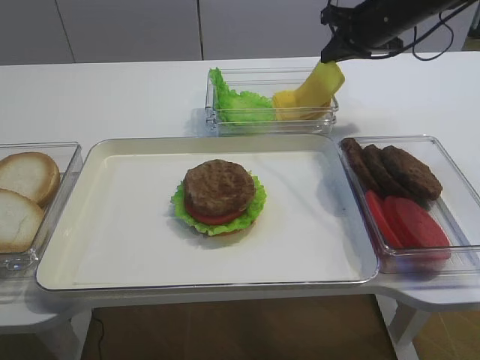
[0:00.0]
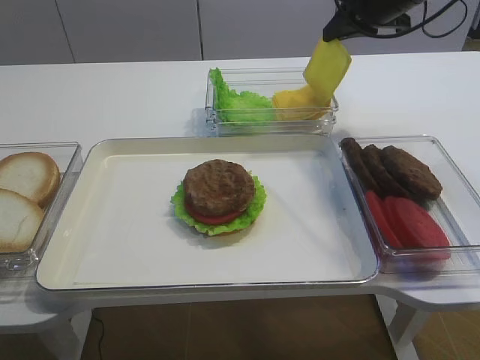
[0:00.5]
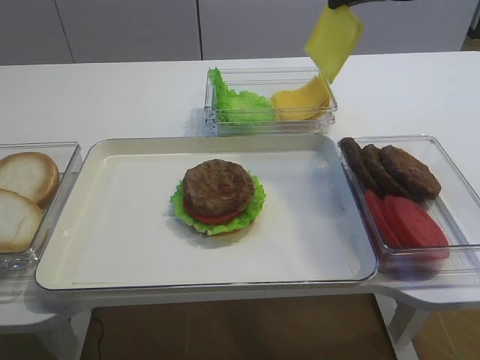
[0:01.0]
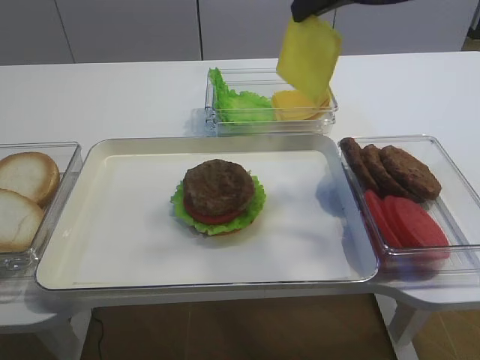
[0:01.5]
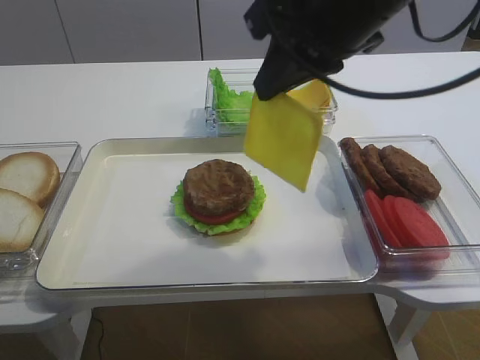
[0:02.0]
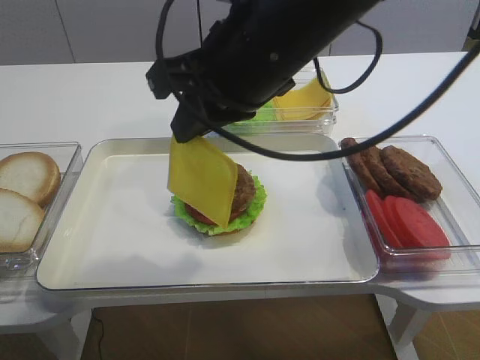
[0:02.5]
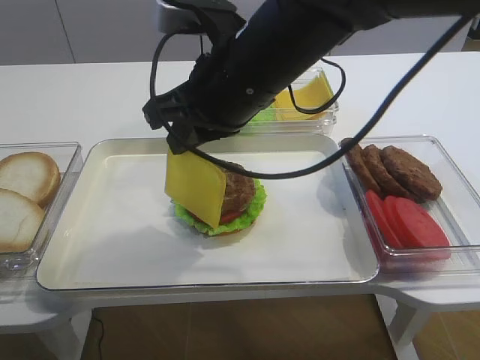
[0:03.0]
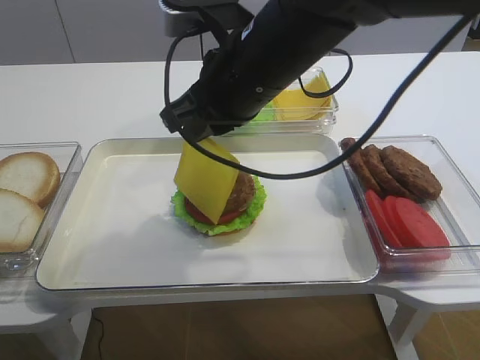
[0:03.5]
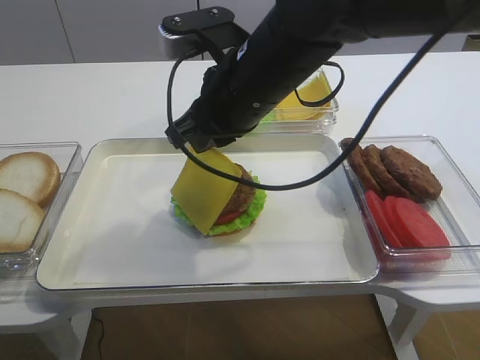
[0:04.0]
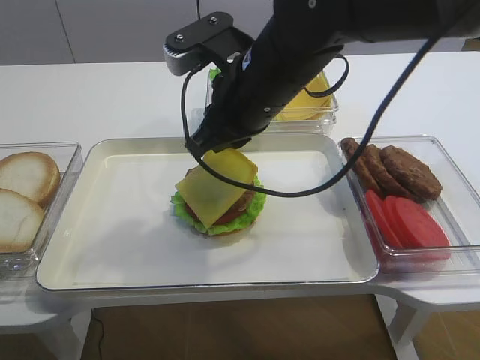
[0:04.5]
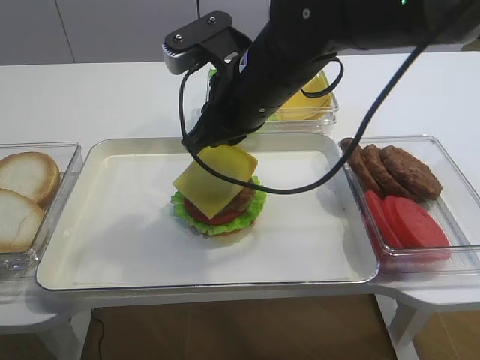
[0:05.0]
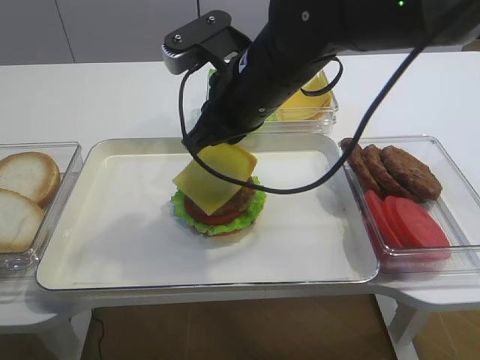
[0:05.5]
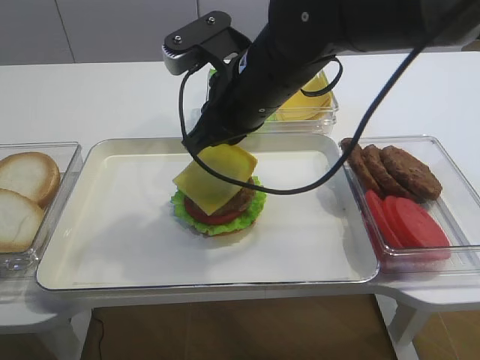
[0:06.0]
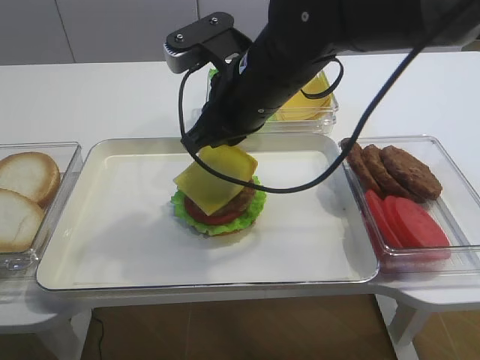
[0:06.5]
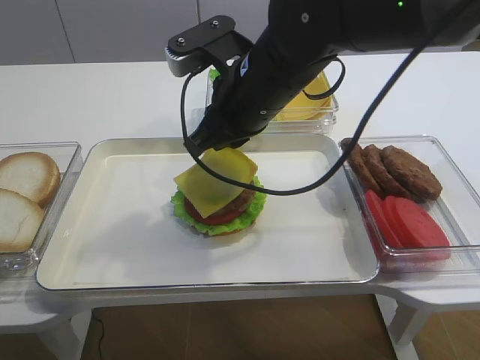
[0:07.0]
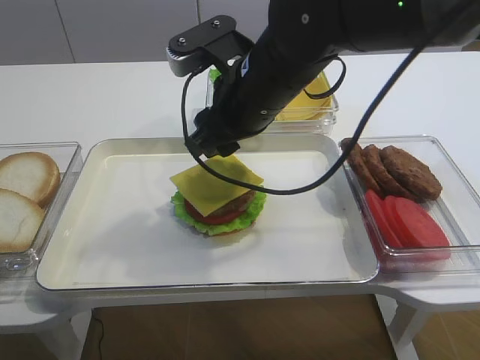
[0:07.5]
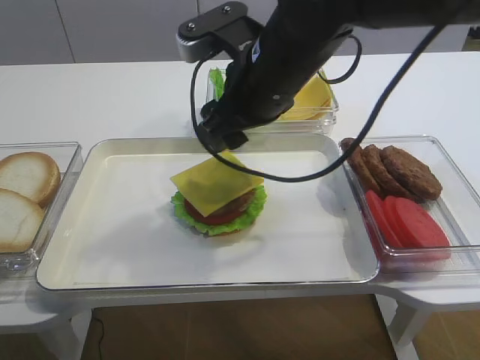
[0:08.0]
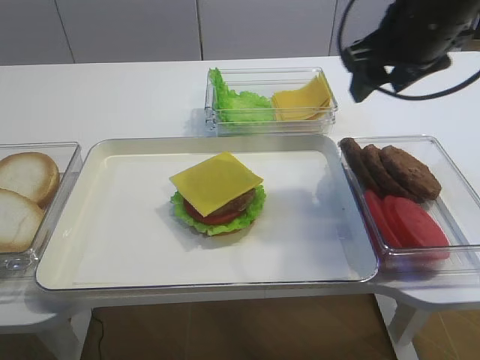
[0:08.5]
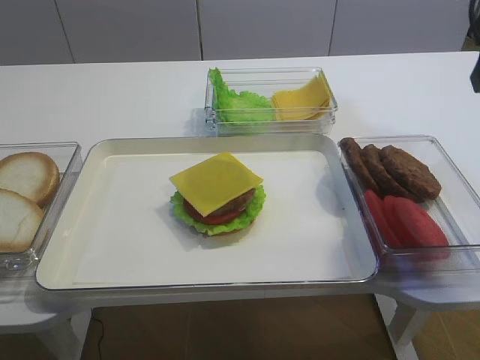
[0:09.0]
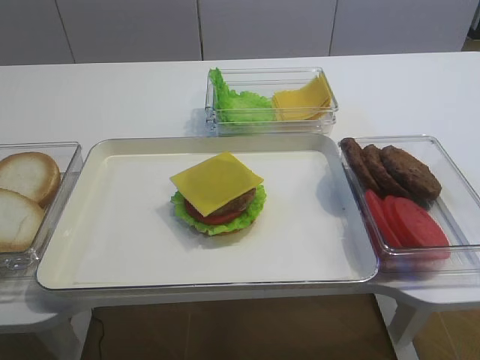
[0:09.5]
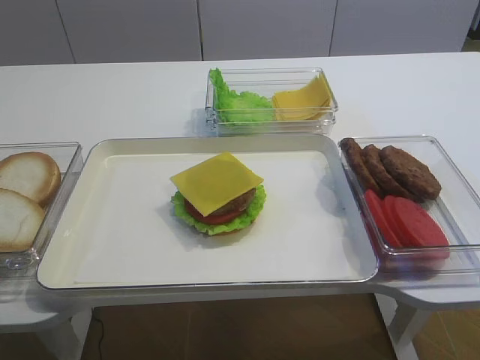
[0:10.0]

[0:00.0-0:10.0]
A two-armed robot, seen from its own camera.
Step, 0:01.0 to 0:07.5: Place the cheese slice on the cutlet with the right gripper.
0:00.0 to 0:02.0: The right gripper heads backward, upward and to the left, covering roughly 25 cm.
0:02.0 to 0:04.0: The right gripper shifts approximately 10 cm downward and to the left.
0:04.0 to 0:06.0: There are only small adjustments of the grippers.
0:06.0 to 0:08.0: The right gripper opens.
0:08.0 to 0:10.0: The right gripper goes some 35 cm backward and to the right.

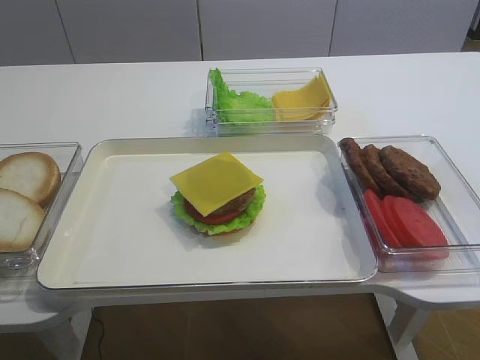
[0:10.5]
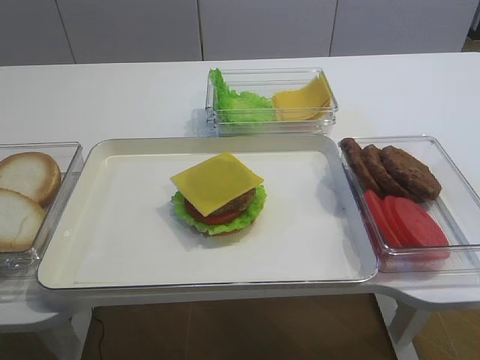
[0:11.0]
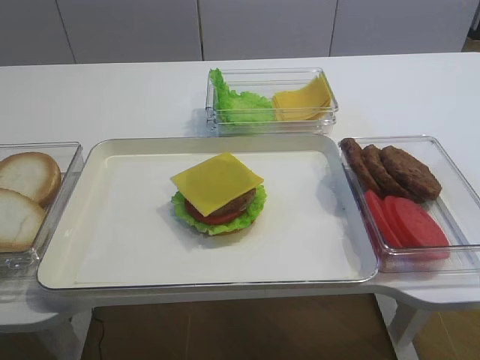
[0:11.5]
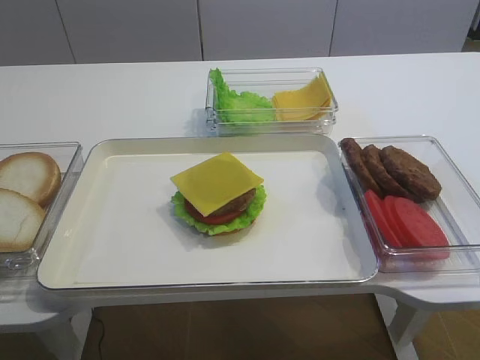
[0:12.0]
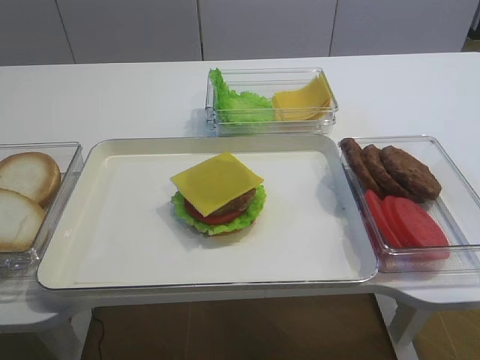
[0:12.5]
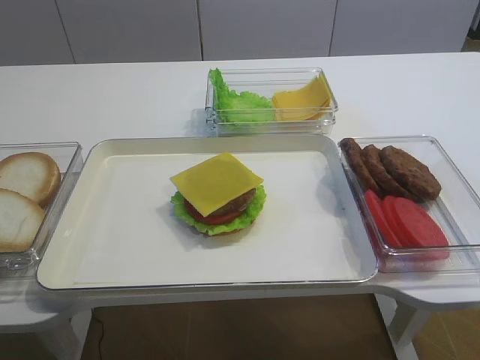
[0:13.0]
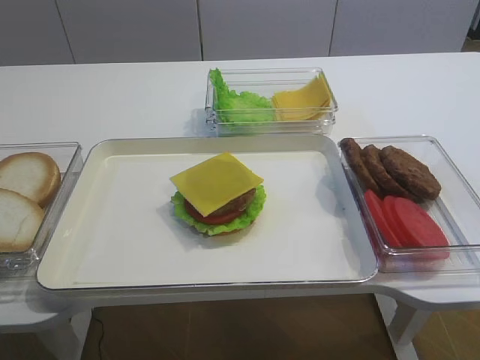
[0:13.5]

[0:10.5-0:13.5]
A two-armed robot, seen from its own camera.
0:12.0 to 0:13.5: Both grippers stay about where they are.

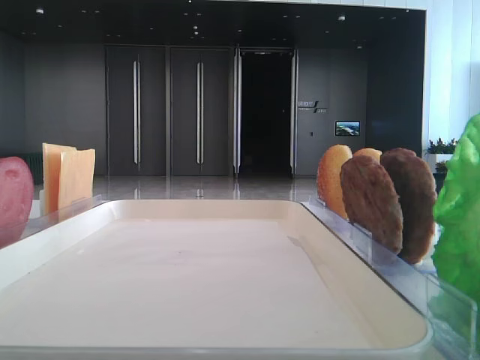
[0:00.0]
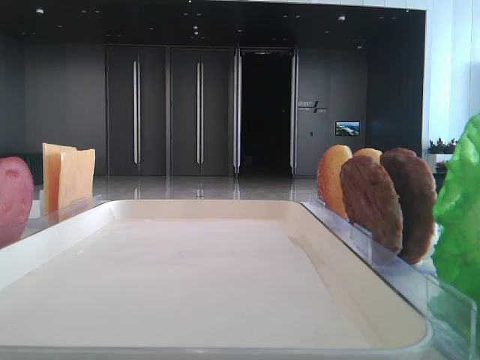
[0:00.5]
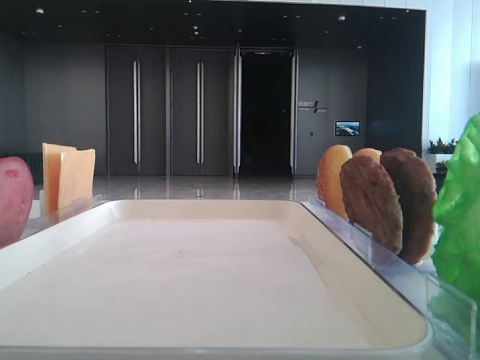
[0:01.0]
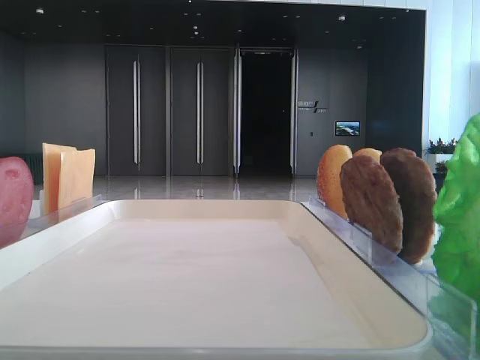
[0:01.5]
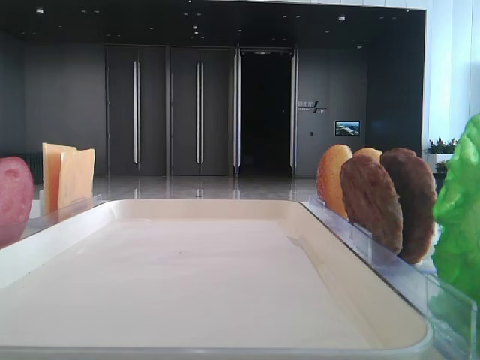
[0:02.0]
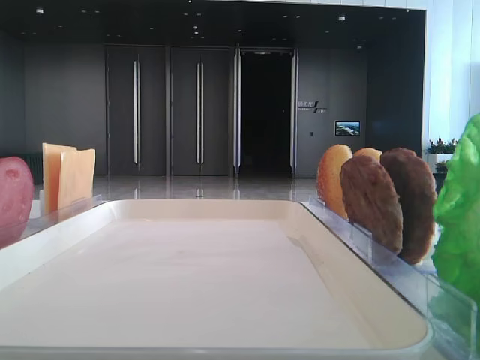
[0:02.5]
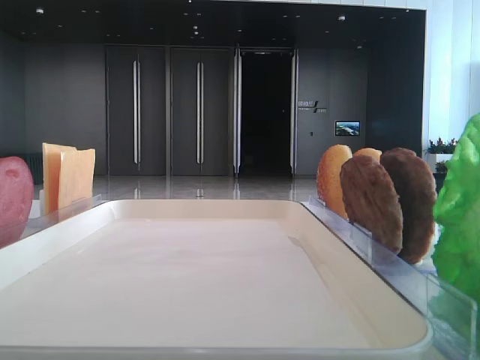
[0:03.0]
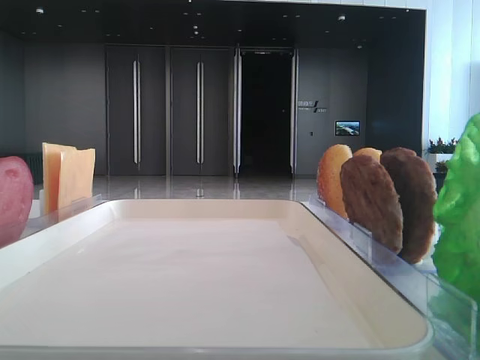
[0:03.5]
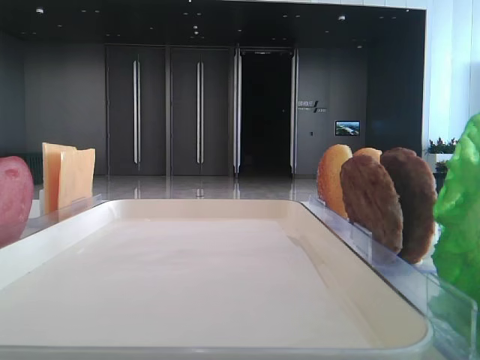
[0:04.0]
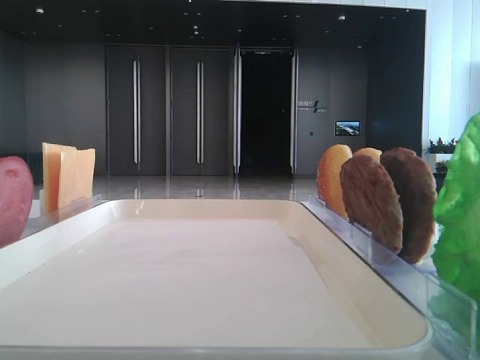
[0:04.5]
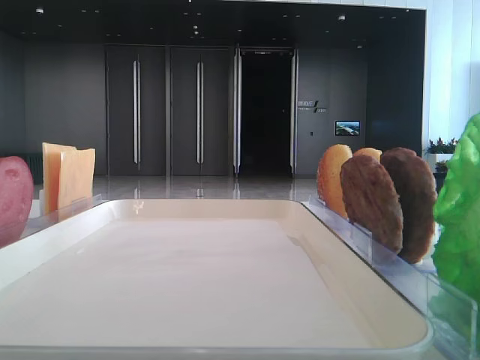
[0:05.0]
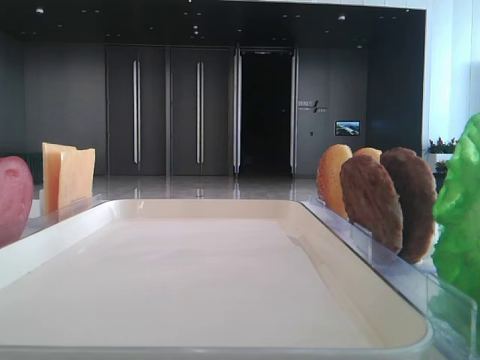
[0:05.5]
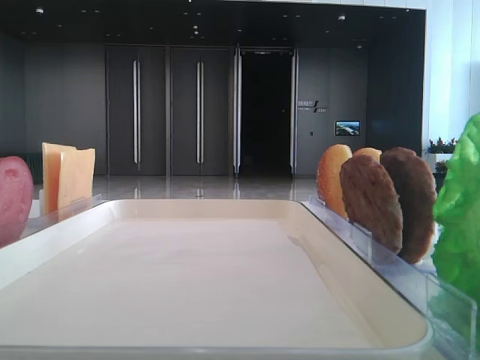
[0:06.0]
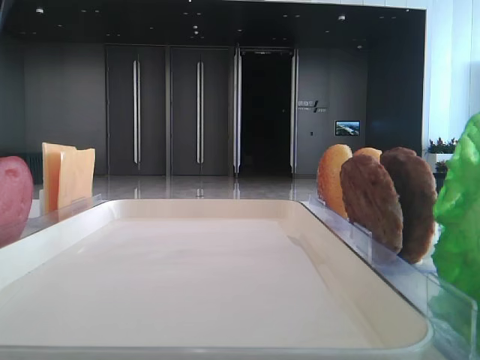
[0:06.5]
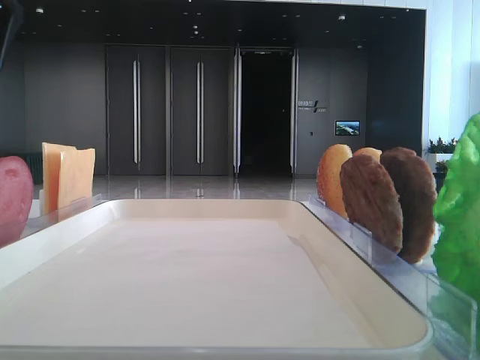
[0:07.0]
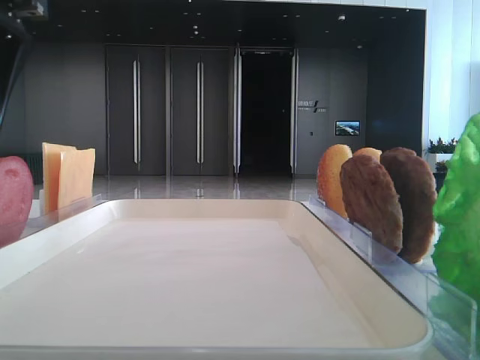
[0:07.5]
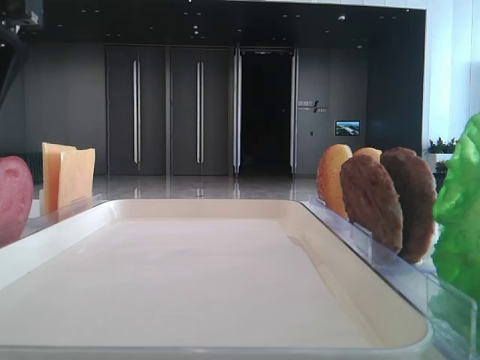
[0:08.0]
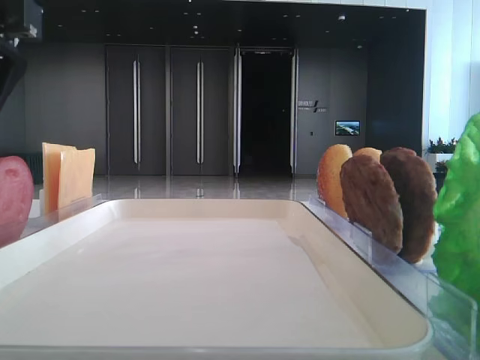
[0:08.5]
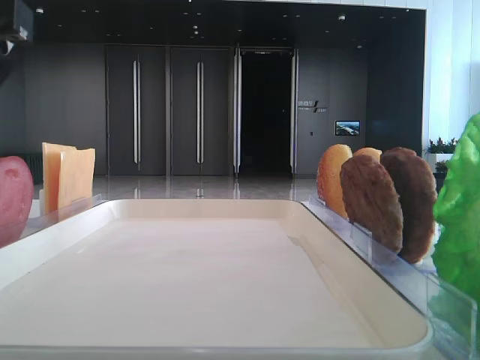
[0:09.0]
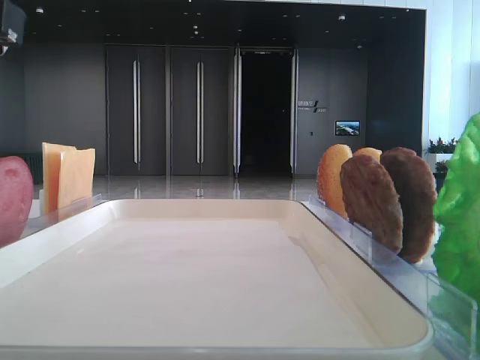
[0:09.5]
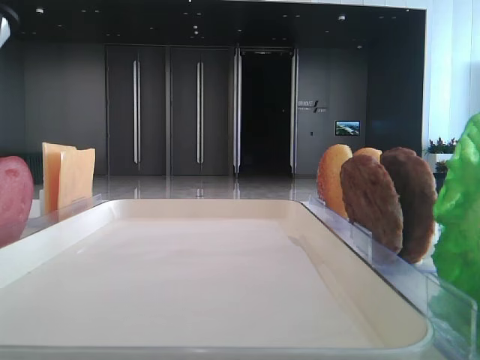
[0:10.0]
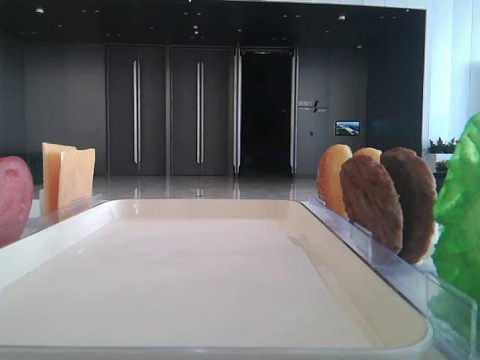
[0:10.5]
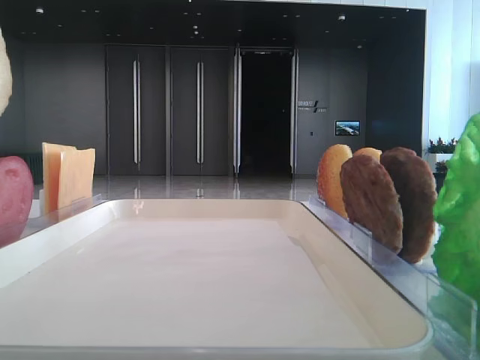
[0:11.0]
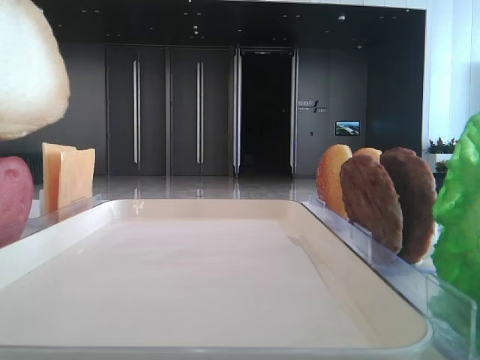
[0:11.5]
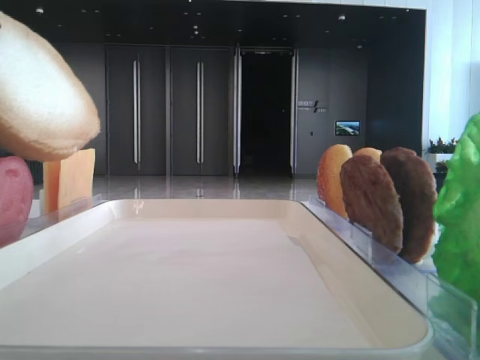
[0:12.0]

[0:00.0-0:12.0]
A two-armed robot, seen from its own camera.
0:08.0 to 0:10.0: The left gripper closes up.

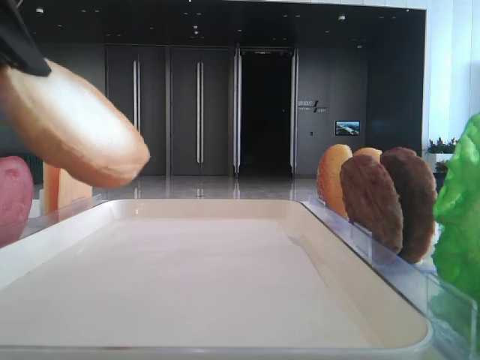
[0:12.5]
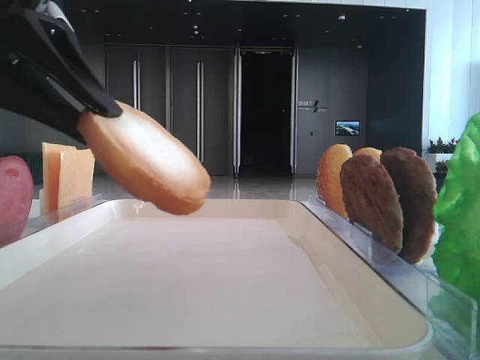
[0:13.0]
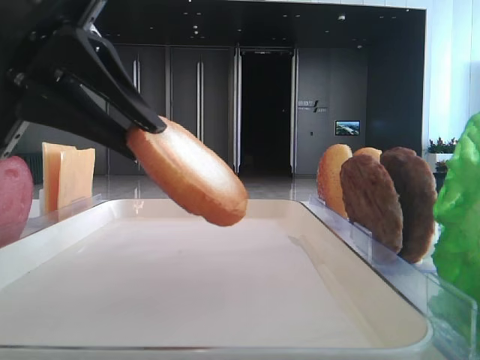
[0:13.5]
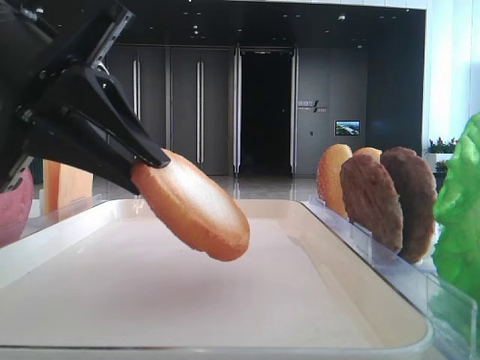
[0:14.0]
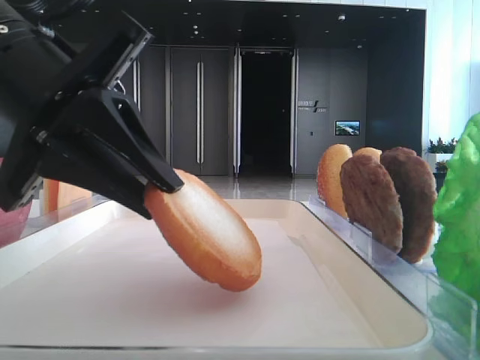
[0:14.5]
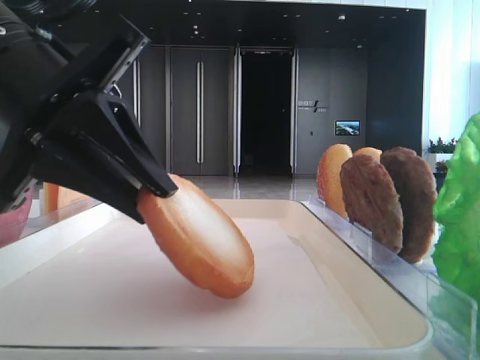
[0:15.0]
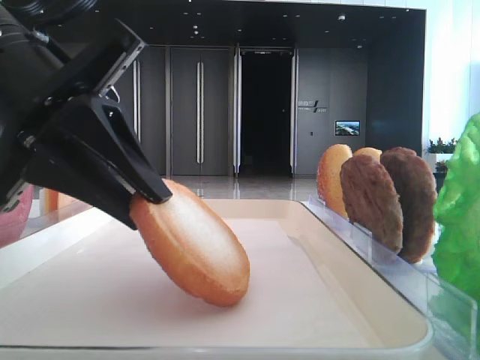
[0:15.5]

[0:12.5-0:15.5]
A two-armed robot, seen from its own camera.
0:12.5 to 0:14.0: The left gripper moves downward and to the right, approximately 10 cm.
0:14.0 to 0:15.5: There are only small adjustments of the grippers.
